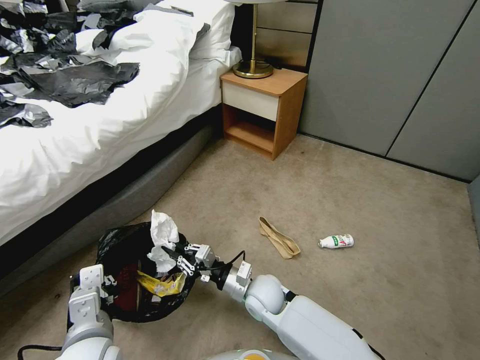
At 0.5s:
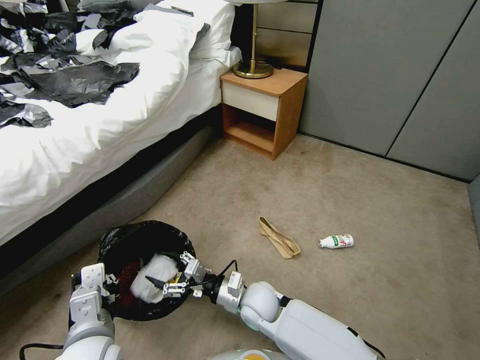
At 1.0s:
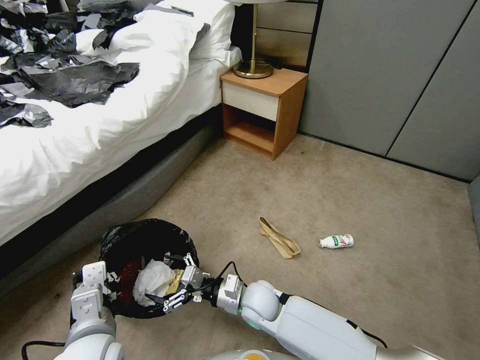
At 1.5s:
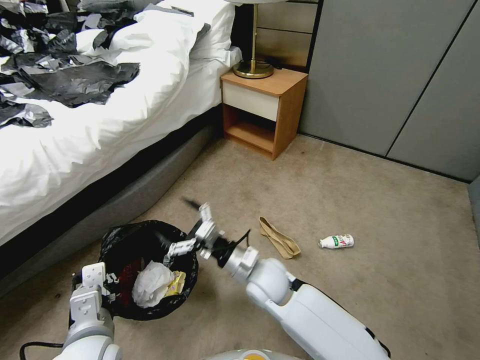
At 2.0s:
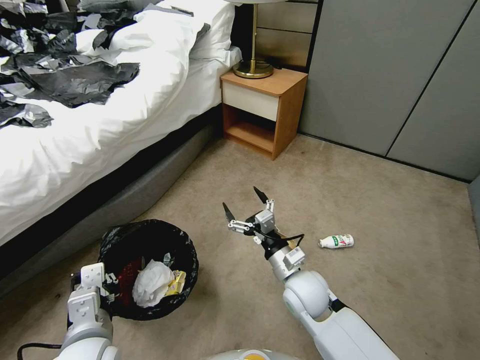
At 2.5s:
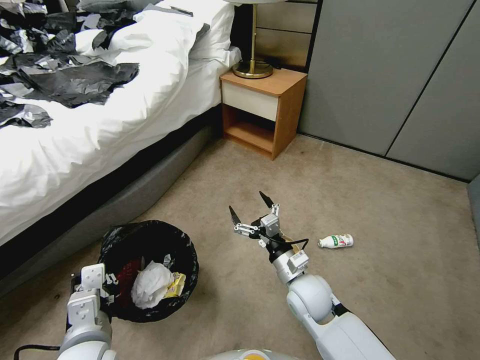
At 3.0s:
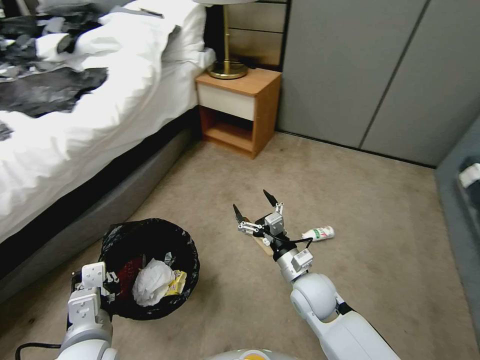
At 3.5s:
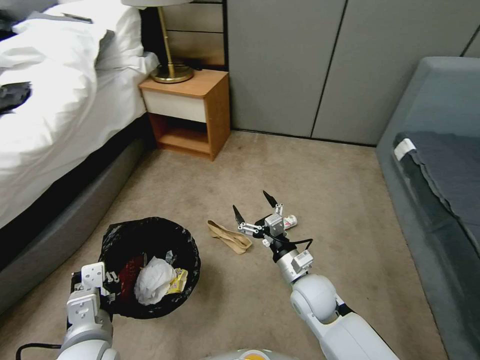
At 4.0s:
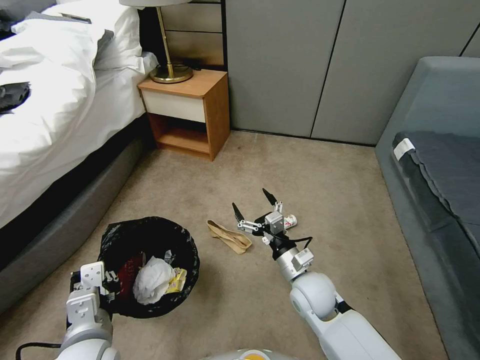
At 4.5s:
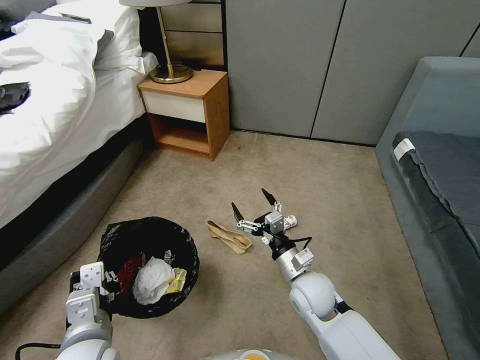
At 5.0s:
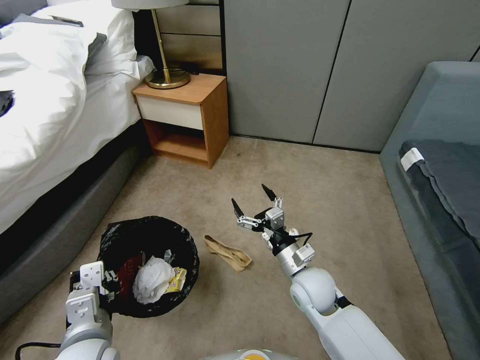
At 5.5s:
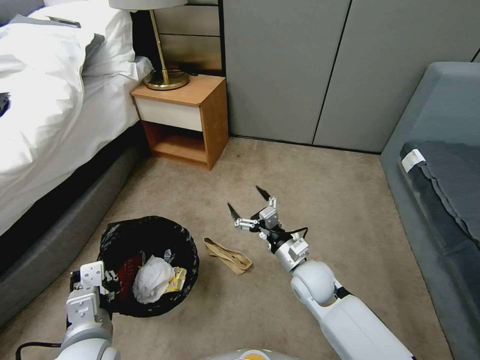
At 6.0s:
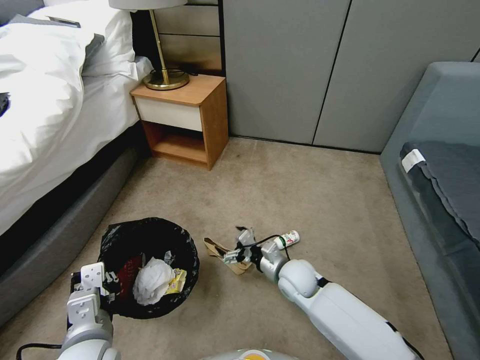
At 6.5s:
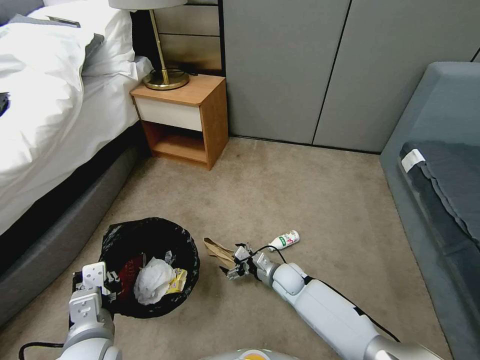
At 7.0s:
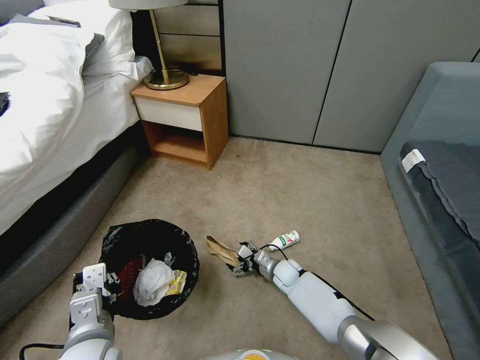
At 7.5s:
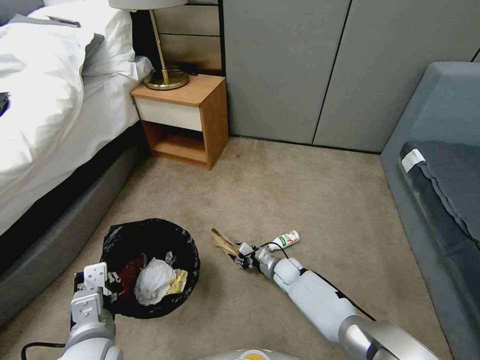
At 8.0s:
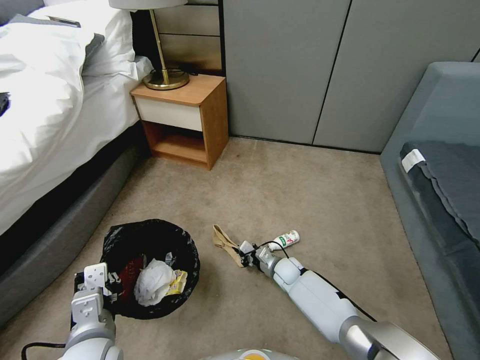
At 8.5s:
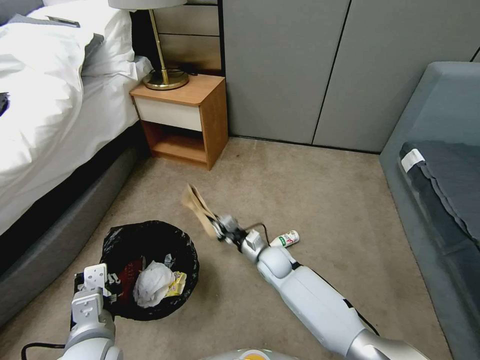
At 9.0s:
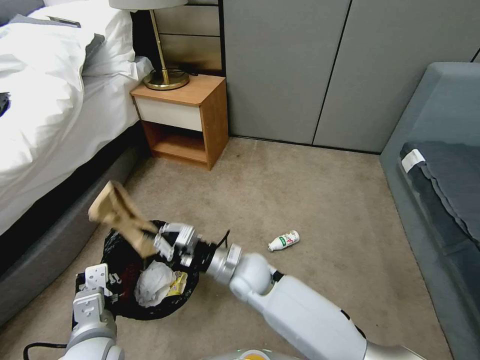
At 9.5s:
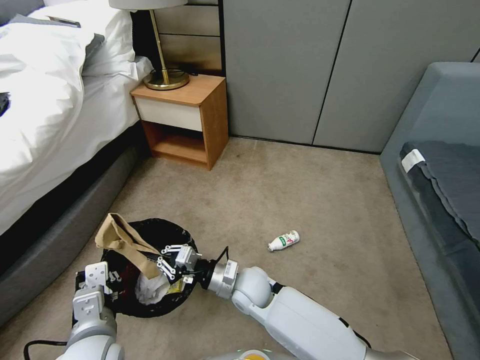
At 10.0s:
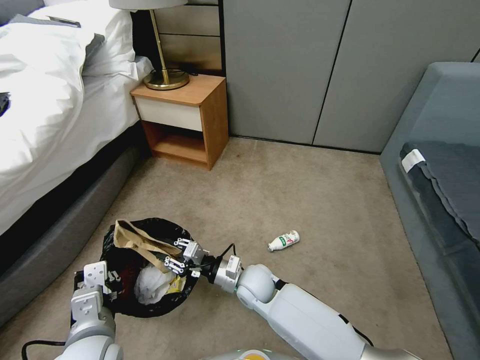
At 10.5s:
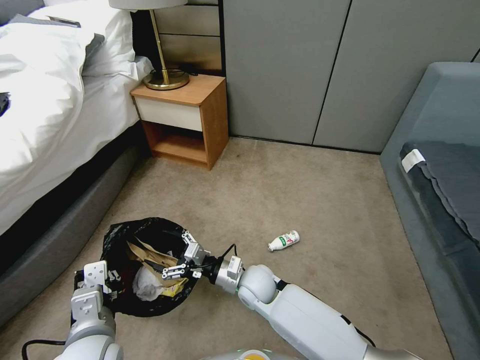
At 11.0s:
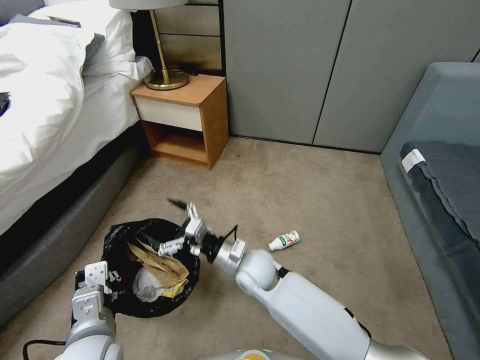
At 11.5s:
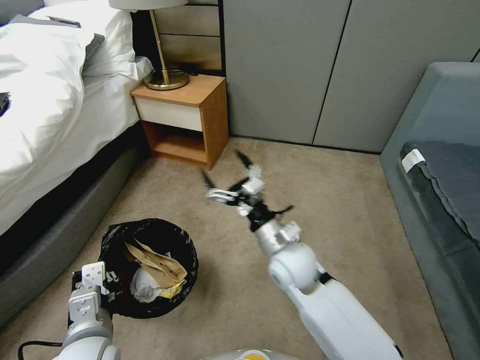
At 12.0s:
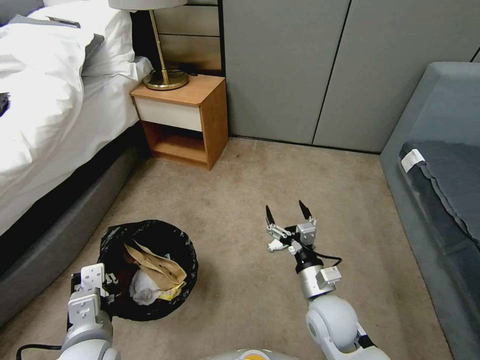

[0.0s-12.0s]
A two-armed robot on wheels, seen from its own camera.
Task of the whole recording: Pick up the trash bin, then pick up the garbage from the floor and place it into the trash bin.
0.0s to 2.0s: The right gripper is displaced to the right and upward by roughly 10 cm, and opens its fingers.
4.0s to 6.0s: The right gripper ends up some 5 cm from where it was.
6.0s to 8.0s: The right gripper shifts some 15 cm downward and forward, and closes up.
8.0s to 10.0s: The right gripper shifts about 20 cm upward, to the left and backward.
10.0s to 12.0s: The right gripper goes about 15 cm to the right and backward, and opens.

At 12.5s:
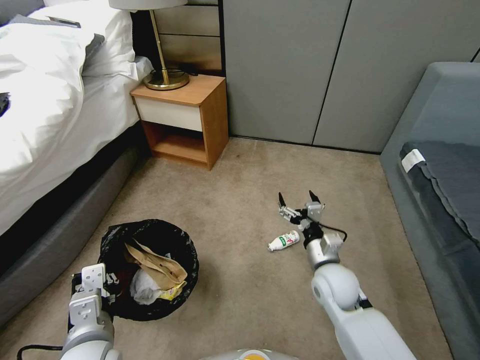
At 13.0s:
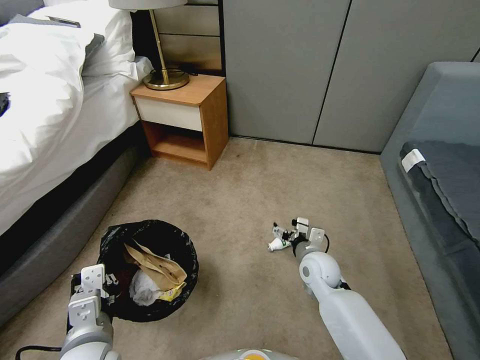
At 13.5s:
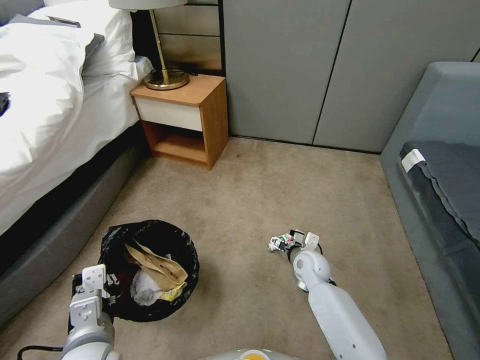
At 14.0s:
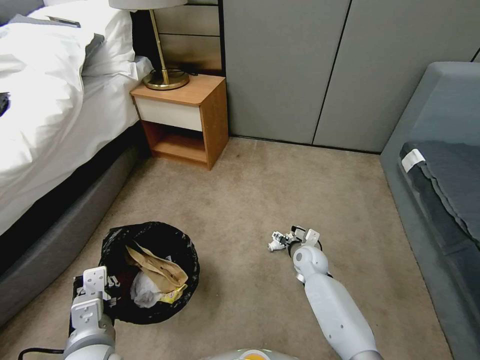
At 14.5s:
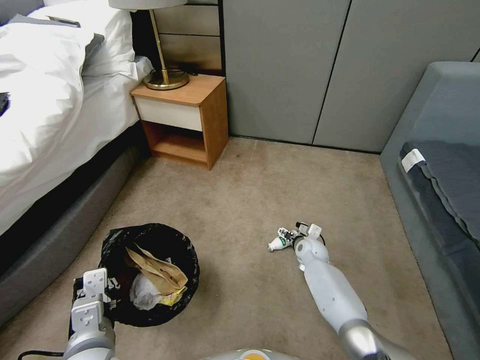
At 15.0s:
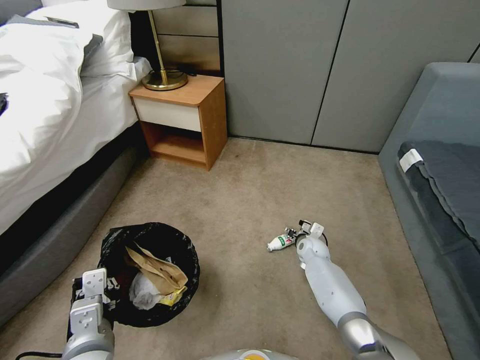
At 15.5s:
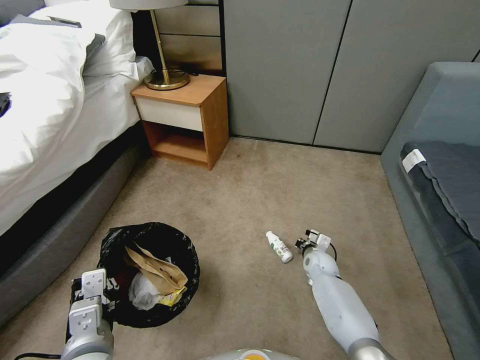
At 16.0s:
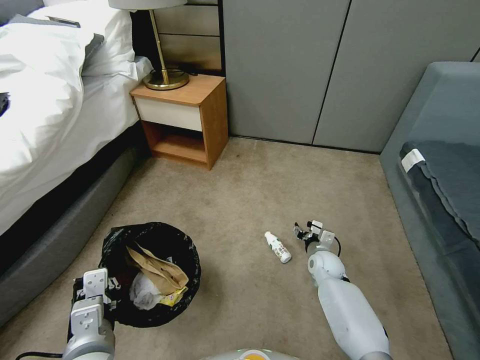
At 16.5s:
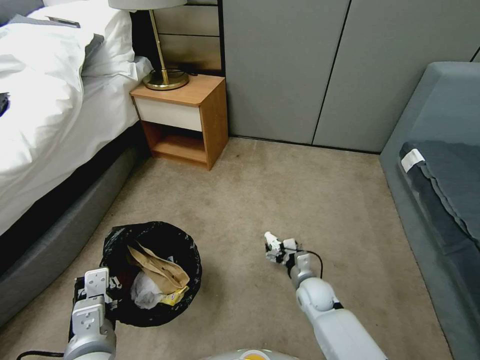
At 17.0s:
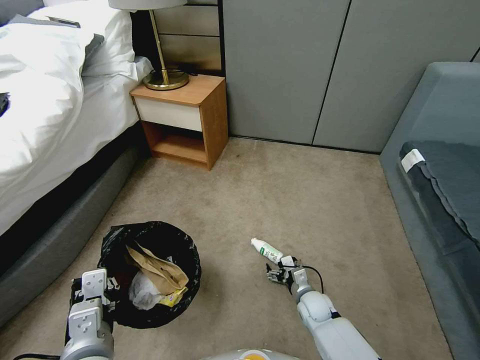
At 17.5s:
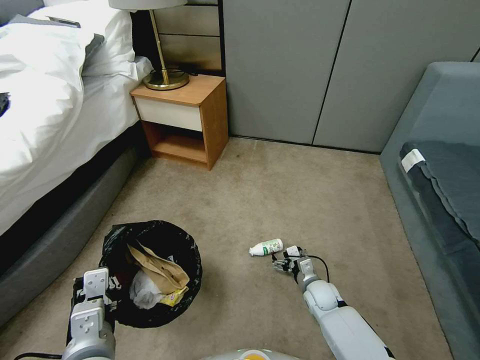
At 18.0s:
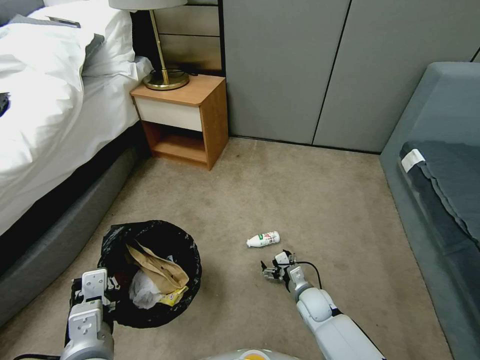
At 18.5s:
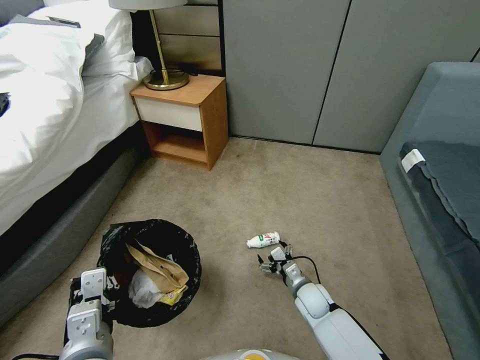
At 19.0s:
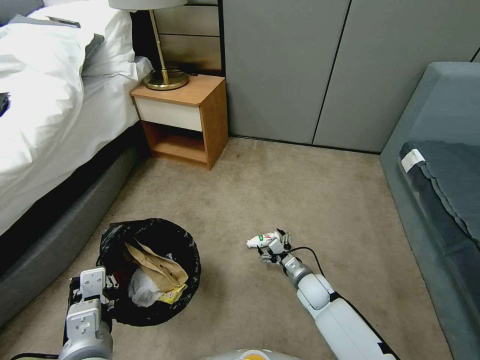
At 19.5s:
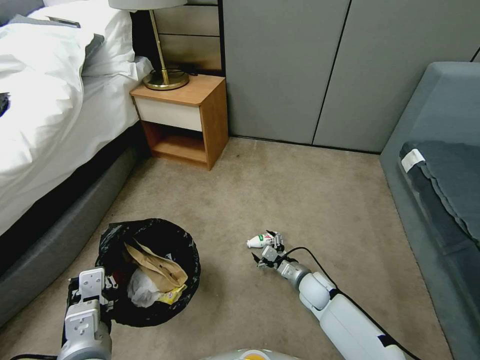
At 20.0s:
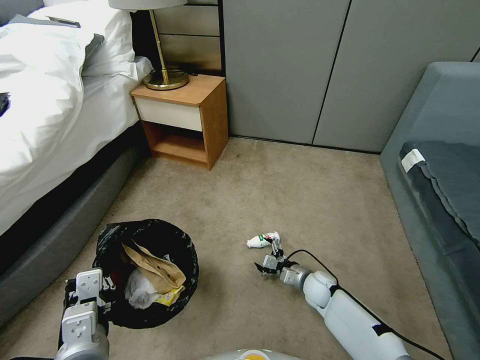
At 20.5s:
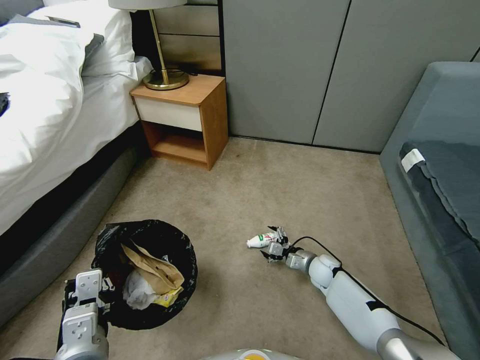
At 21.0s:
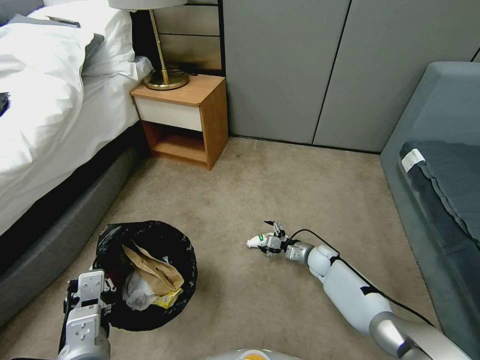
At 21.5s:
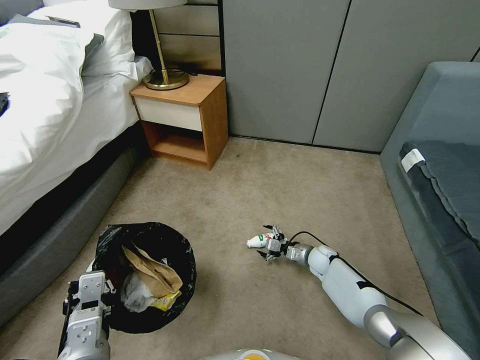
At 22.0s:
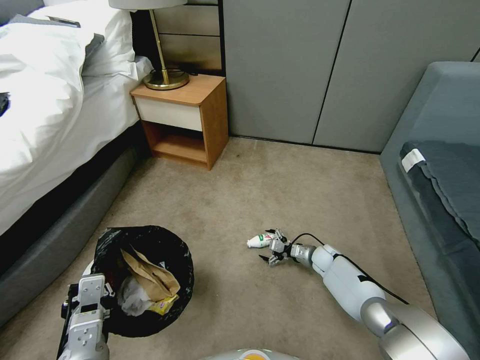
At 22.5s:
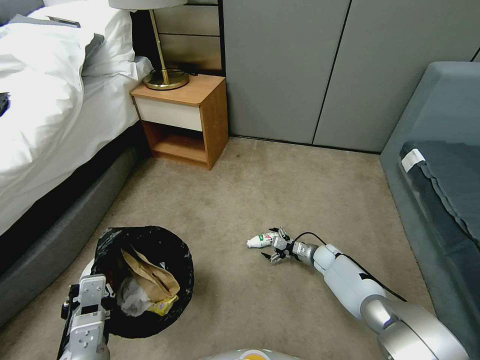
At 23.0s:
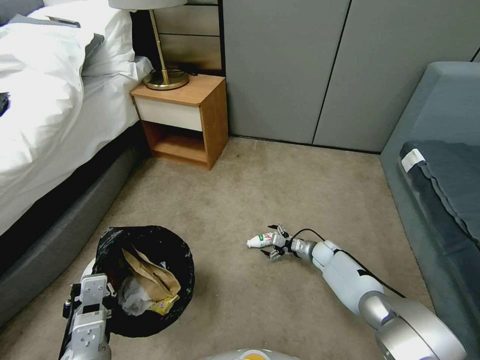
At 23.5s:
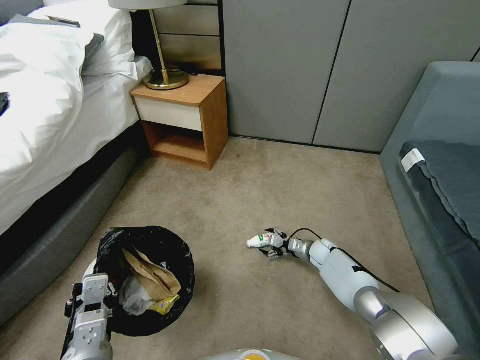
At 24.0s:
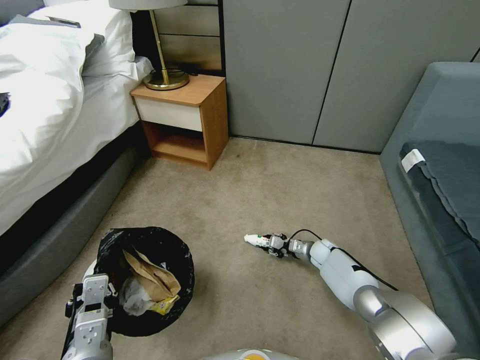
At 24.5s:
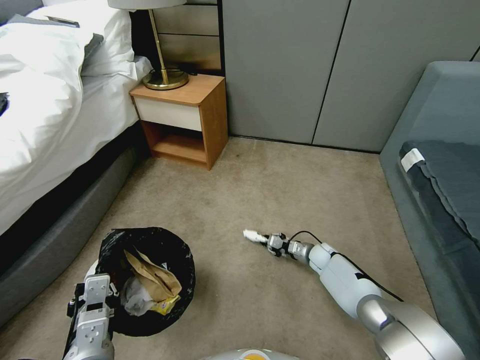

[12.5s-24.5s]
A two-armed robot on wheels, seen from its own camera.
Task of the whole recording: Pick up the trash bin, then pick up the garbage from the floor and place it into the trash bin.
12.5s to 14.5s: The right gripper moves forward and downward, approximately 20 cm.
14.5s to 16.5s: The right gripper travels backward by roughly 15 cm, and closes and opens again.
16.5s to 18.5s: There are only small adjustments of the grippers.
18.5s to 20.5s: The right gripper shifts approximately 10 cm forward and to the right.
20.5s to 22.5s: The right gripper goes roughly 5 cm forward.
22.5s to 24.5s: The right gripper closes its fingers.

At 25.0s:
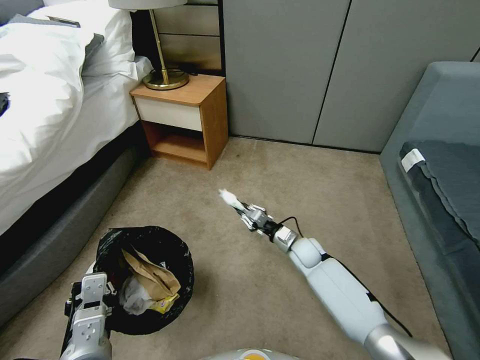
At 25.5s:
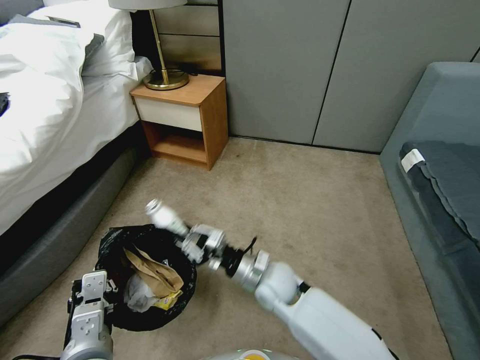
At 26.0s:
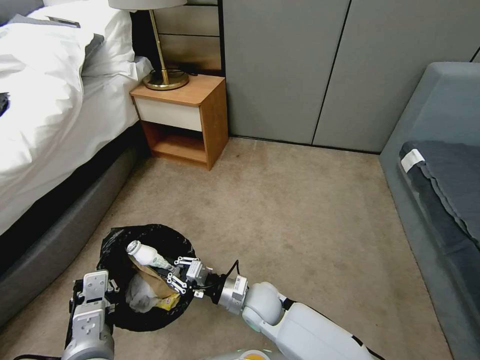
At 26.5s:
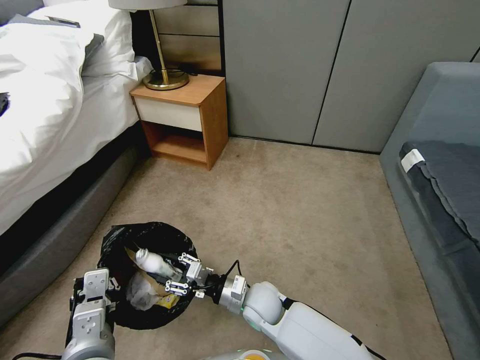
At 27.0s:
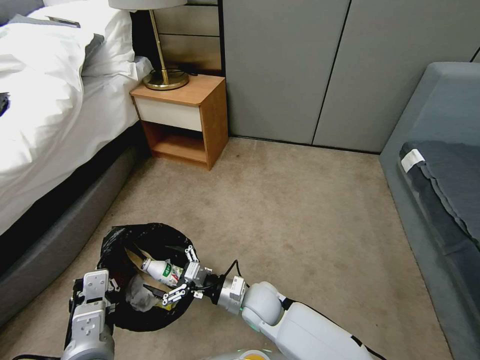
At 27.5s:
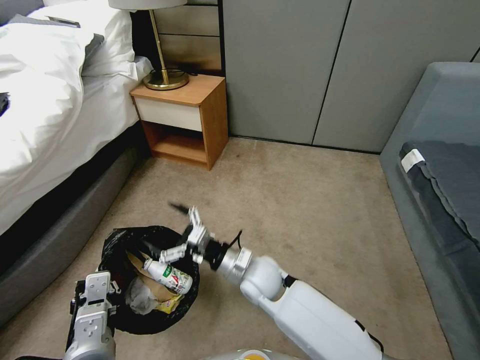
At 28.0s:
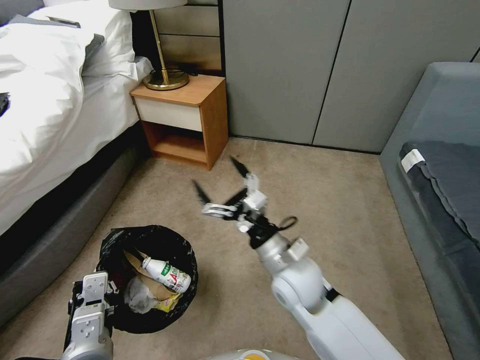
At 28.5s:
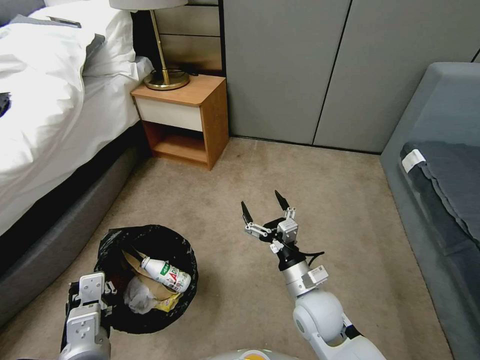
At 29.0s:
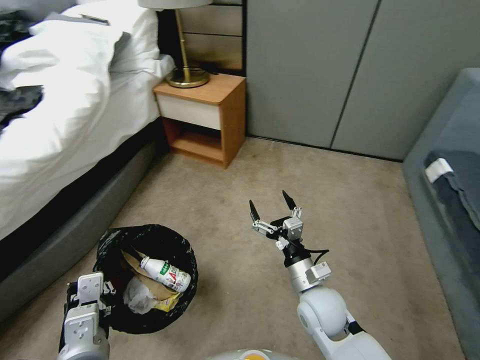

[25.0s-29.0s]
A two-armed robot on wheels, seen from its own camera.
Task of the whole recording: Pick up the trash bin, then pick up the garbage from the floor and place it into the trash bin.
25.0s to 27.0s: The right gripper moves backward and to the left, about 20 cm, and opens up.
27.0s to 29.0s: The right gripper is displaced to the right and upward by roughly 15 cm.
